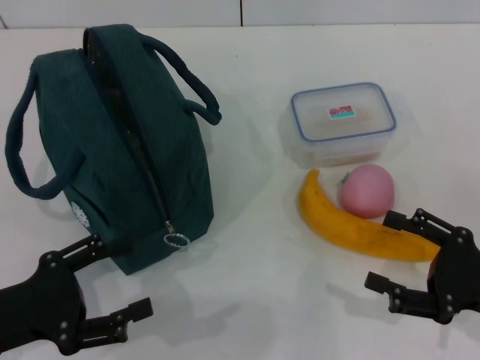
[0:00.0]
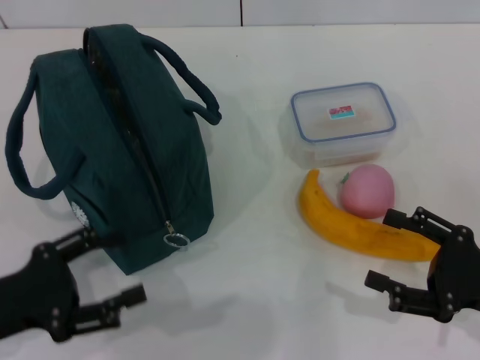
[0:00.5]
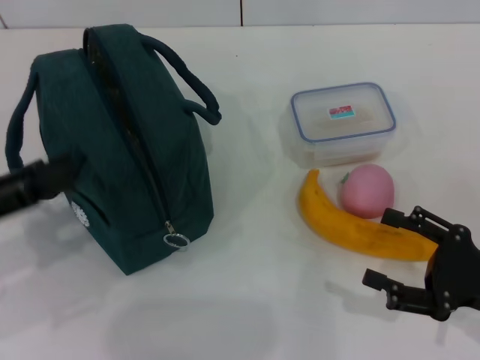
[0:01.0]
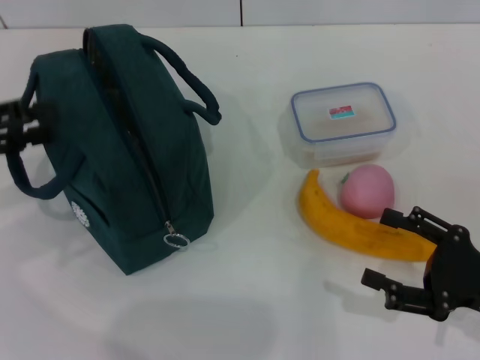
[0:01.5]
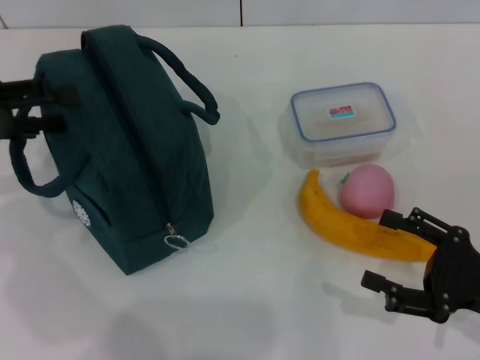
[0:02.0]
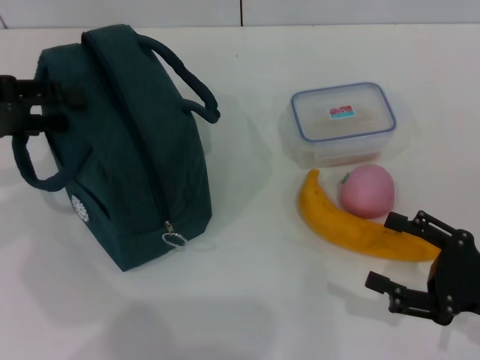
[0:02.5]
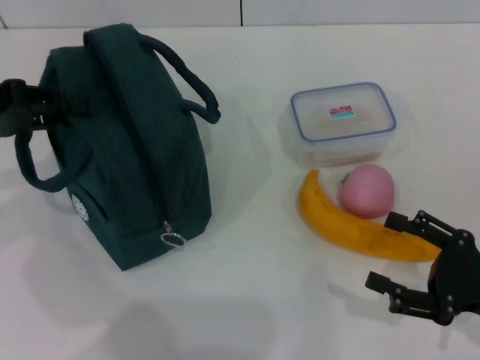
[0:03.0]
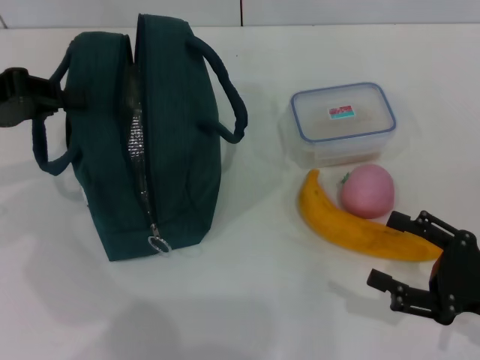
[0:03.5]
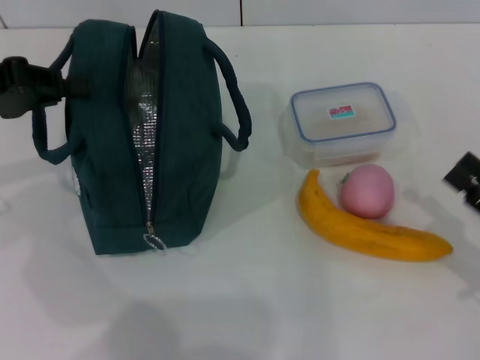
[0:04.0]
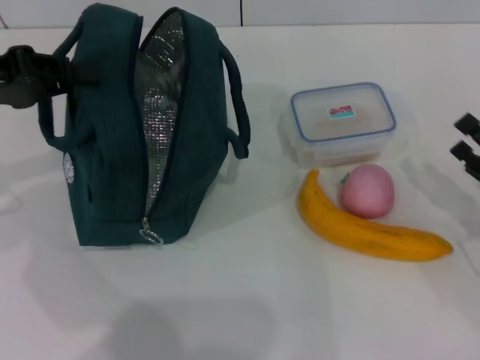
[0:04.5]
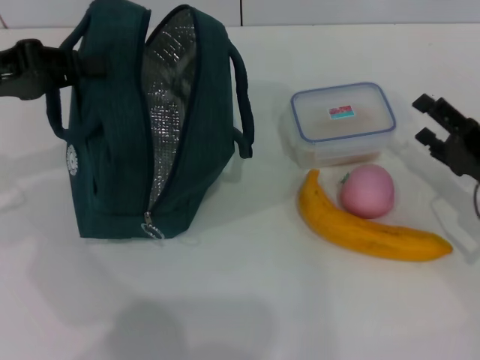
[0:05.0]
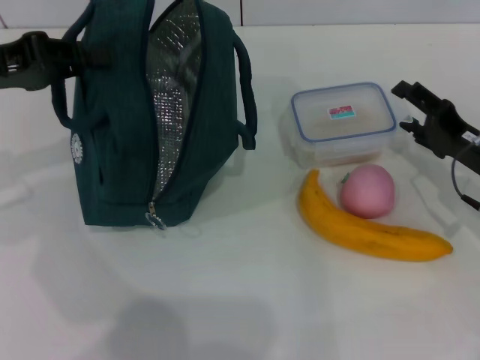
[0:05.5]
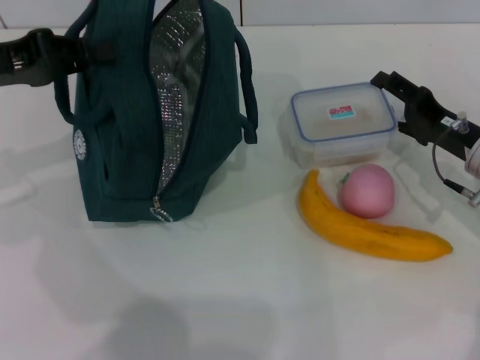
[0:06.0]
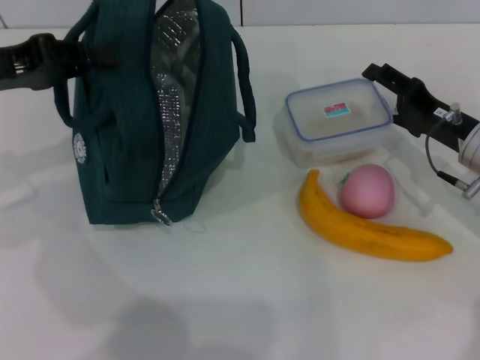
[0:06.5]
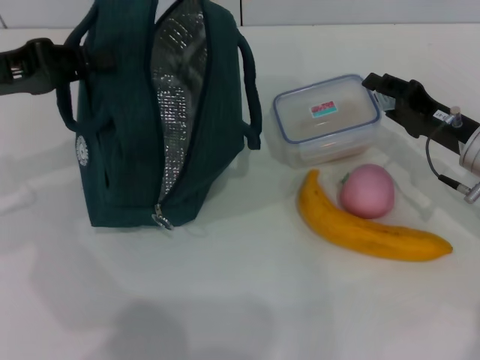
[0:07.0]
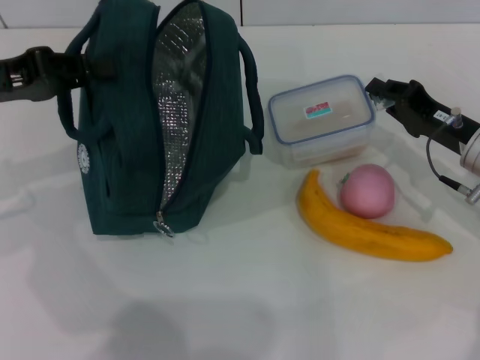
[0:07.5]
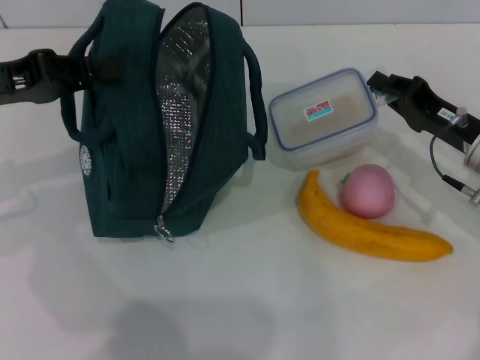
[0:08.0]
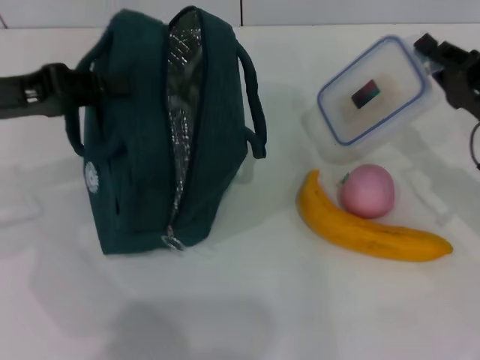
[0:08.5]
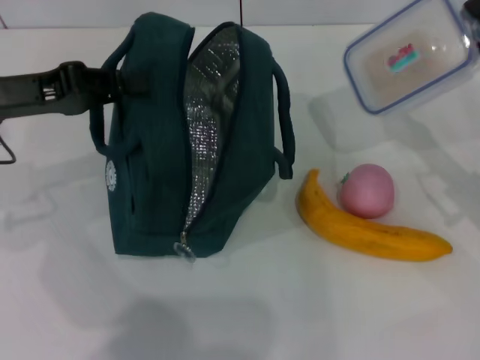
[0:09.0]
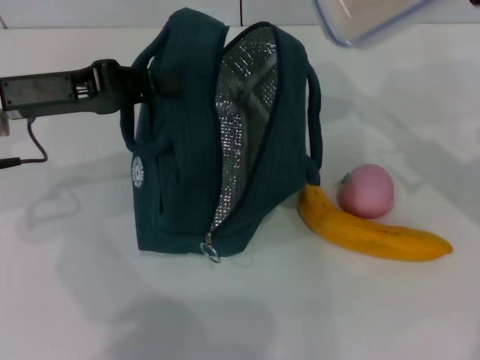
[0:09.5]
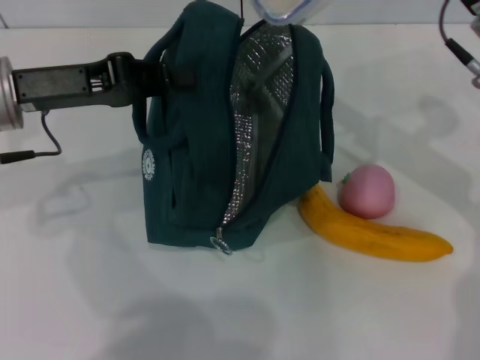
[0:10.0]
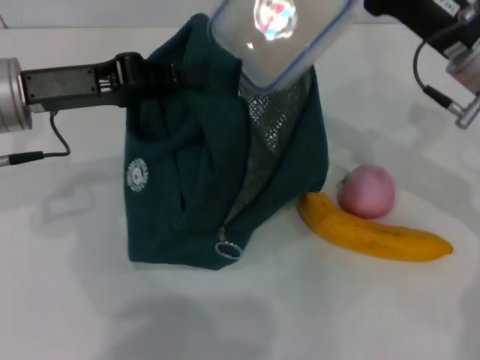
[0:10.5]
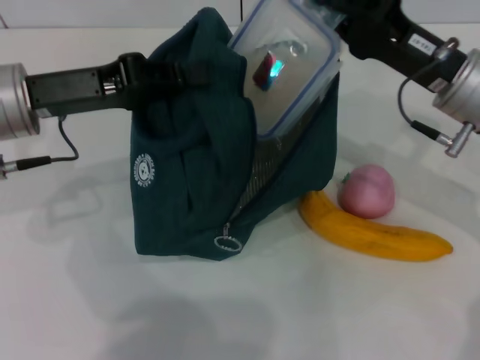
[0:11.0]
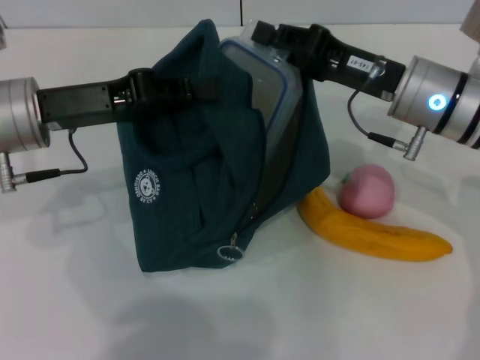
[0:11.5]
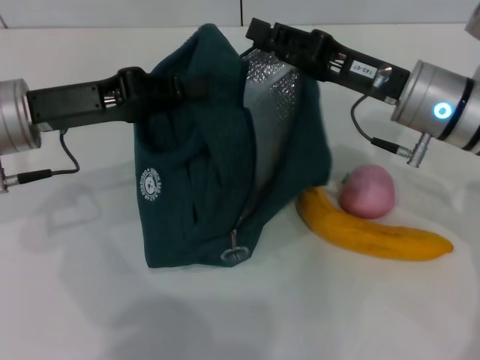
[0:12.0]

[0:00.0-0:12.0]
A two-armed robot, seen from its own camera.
Step, 0.0 to 3.5 s: Hold the lunch bag with your left hand.
Step, 4.0 to 7.5 s: Pick up the lunch box with your right hand.
0.0 to 2.0 s: The left gripper is displaced forward and upward by roughly 20 cm.
2.0 to 4.0 s: The left gripper closes.
4.0 to 6.0 s: The right gripper is displaced forward by approximately 15 cm.
6.0 to 8.0 s: The right gripper closes its fingers.
8.0 to 10.0 s: The left gripper shifts roughly 5 cm to the right, while the right gripper moves upward, approximately 10 cm.
10.0 to 12.0 s: The right gripper shifts by approximately 5 cm.

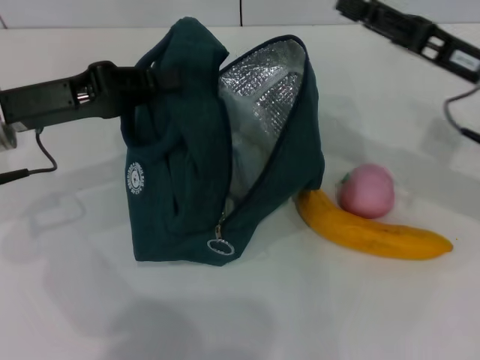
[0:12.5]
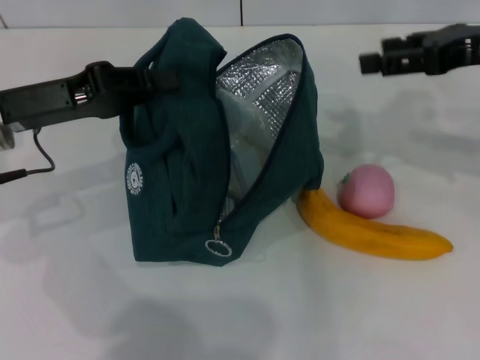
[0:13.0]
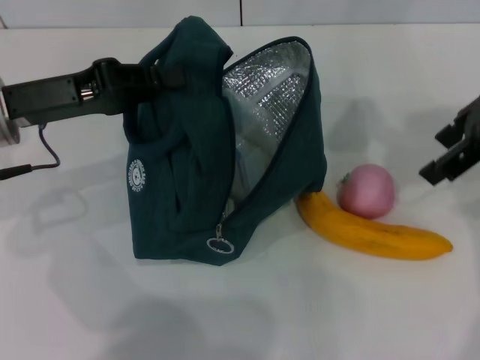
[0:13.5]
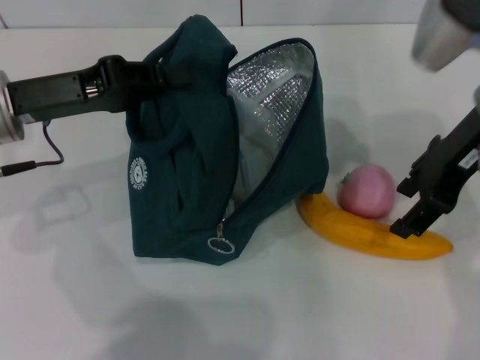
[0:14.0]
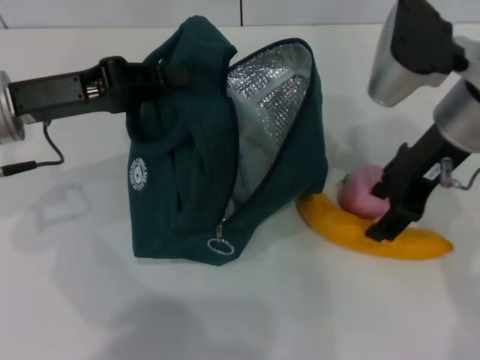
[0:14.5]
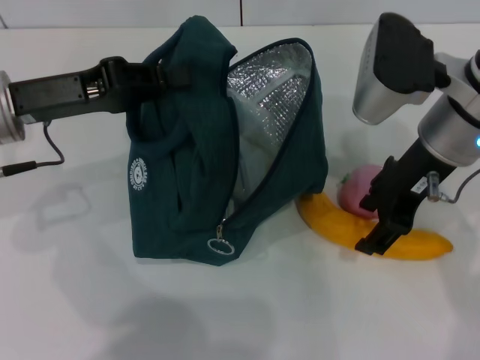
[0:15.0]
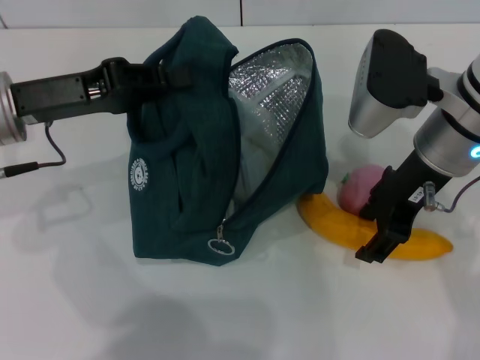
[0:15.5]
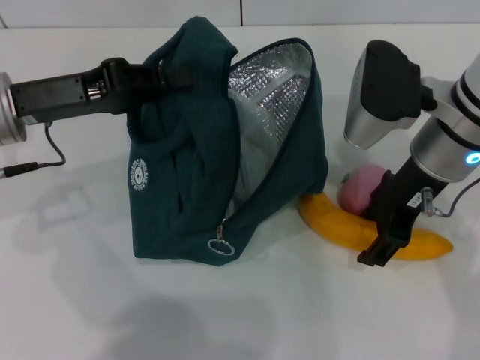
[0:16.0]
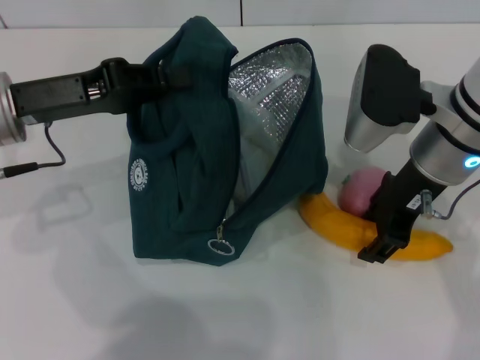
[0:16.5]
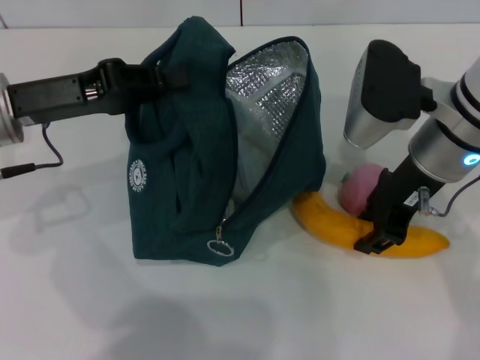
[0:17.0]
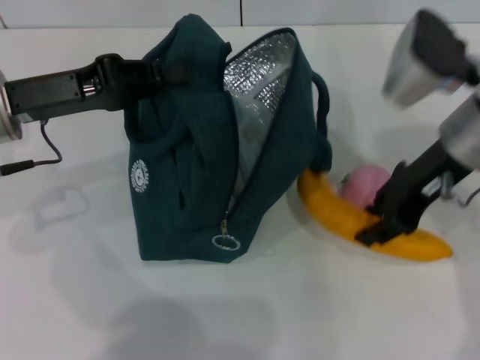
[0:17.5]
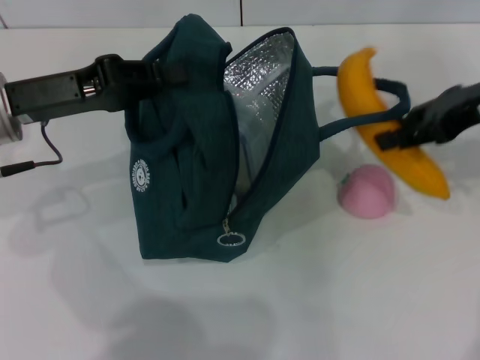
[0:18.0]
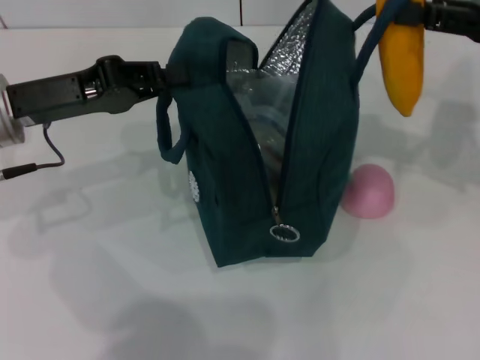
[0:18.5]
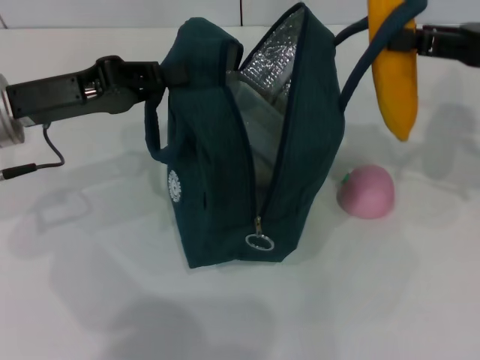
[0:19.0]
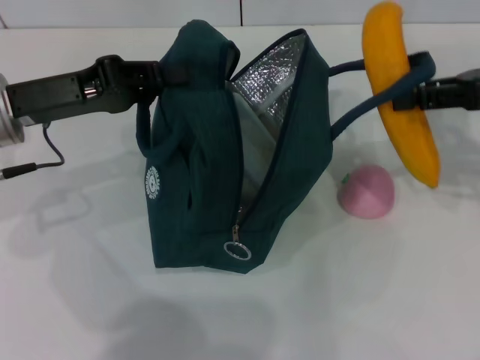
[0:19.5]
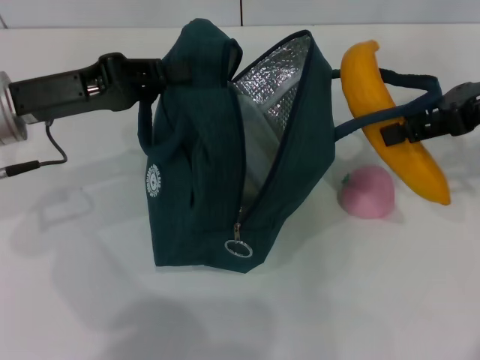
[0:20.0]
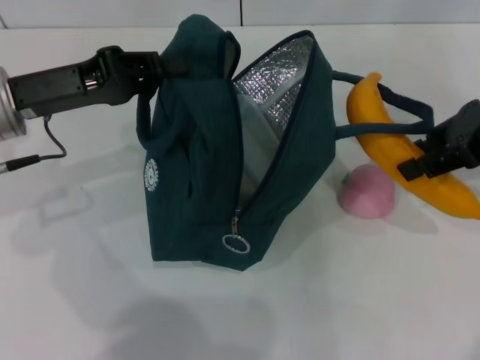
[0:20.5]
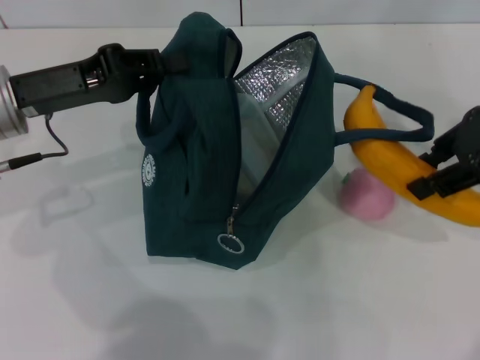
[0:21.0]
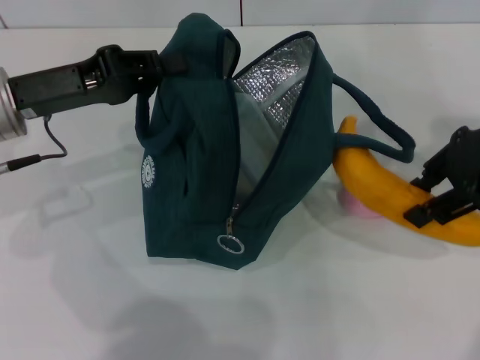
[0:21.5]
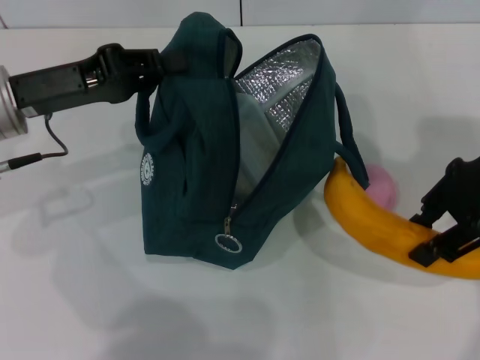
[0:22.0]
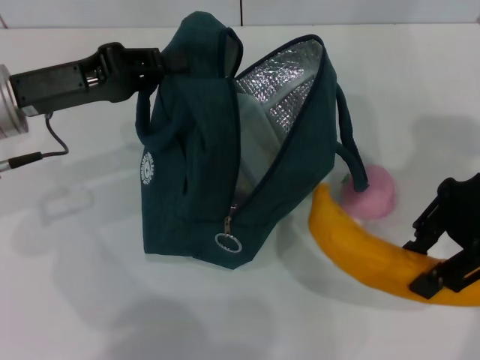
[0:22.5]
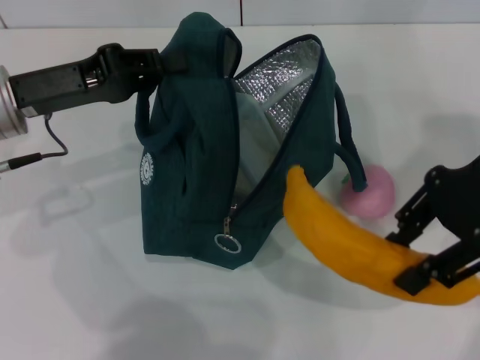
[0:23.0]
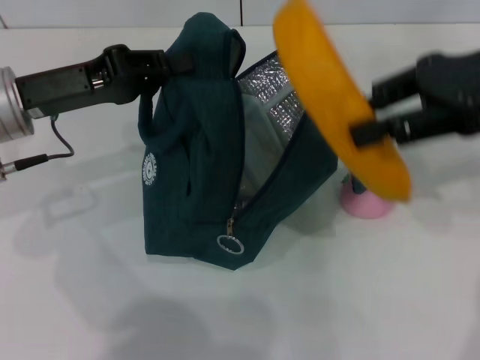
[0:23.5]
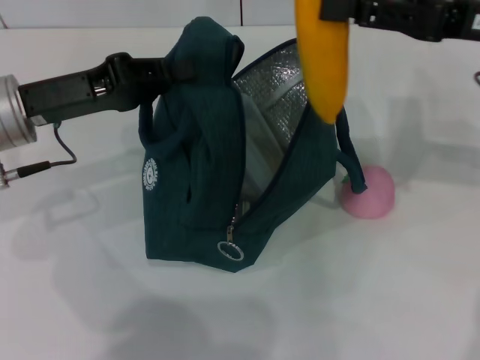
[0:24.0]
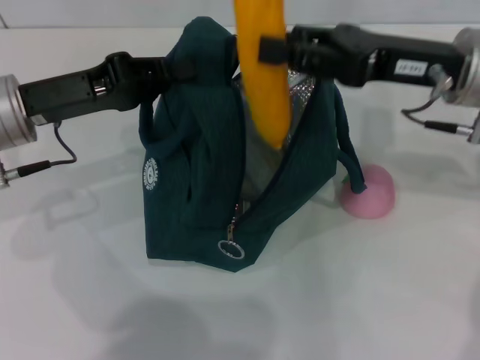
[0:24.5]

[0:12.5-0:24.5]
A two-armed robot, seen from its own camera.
Step, 12.5 to 17.0 s: Take the banana with your right hand.
12.5 to 14.5 s: The right gripper moves to the left and upward, about 10 cm.
14.5 to 16.5 s: The grippers make only small movements.
16.5 to 18.5 s: The right gripper shifts about 15 cm to the right and upward.
20.5 to 22.5 s: The right gripper shifts by roughly 5 cm.
22.5 to 24.5 s: The right gripper goes some 5 cm downward.

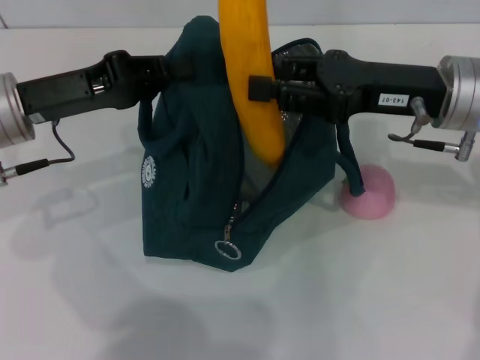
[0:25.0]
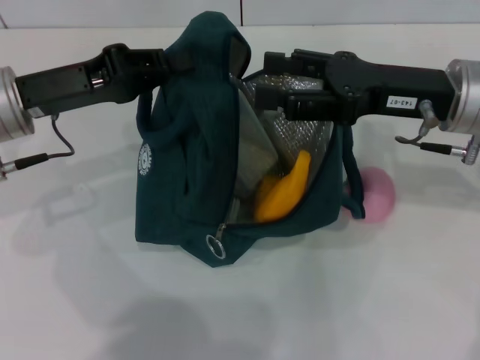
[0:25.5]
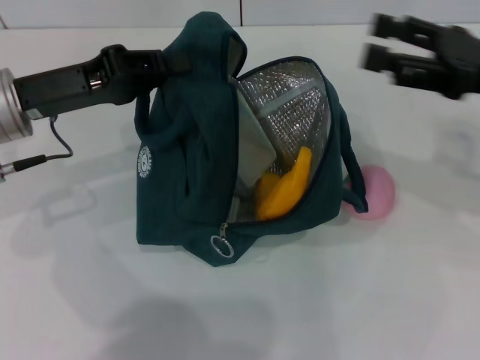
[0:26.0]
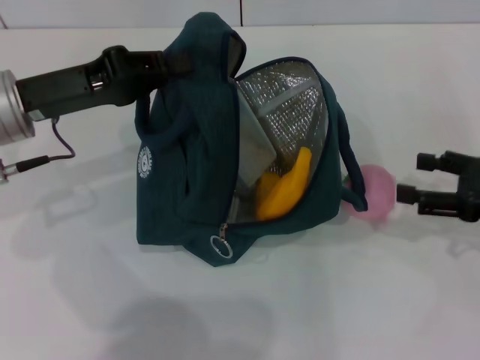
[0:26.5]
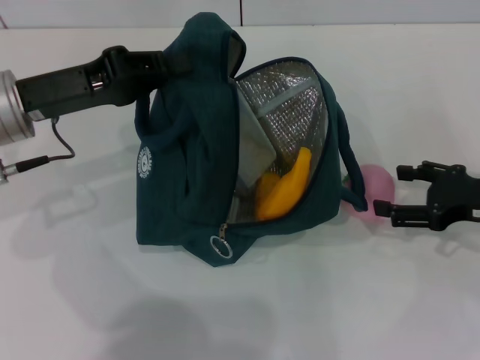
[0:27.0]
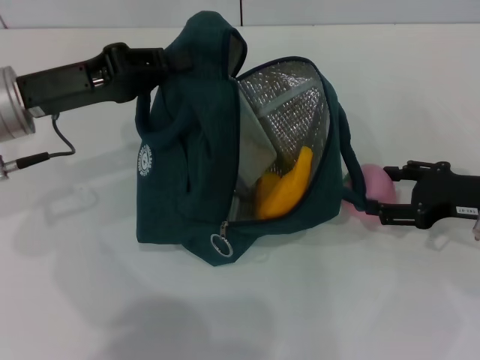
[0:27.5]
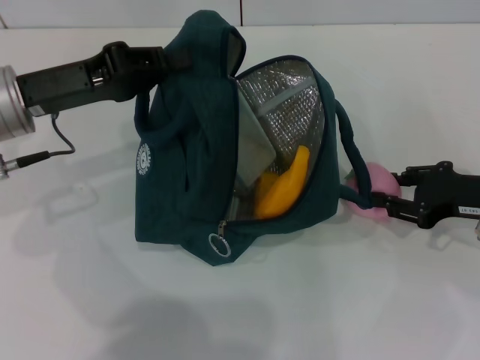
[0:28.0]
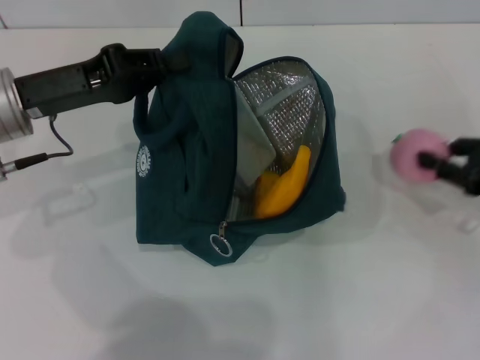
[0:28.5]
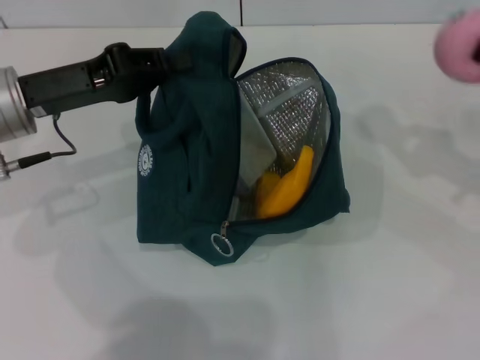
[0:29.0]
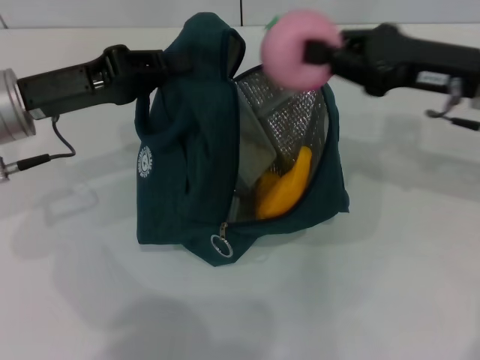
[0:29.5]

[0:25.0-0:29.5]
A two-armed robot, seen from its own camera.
Step, 26.0 to 28.0 s: Grab the peach with your right hand.
25.0 to 27.0 s: The right gripper is displaced to the right and downward by some 15 cm, and opens up.
27.0 to 29.5 s: The right gripper travels upward, to the left and forward by about 15 cm, and closes up.
